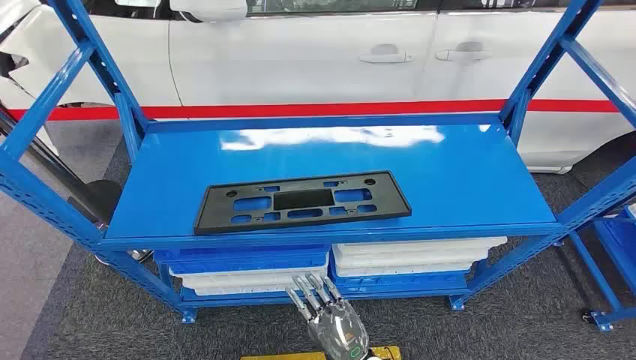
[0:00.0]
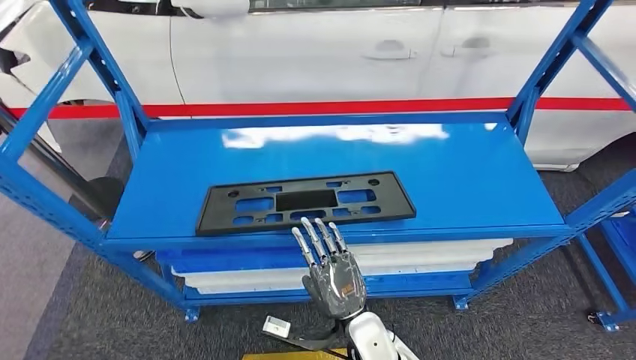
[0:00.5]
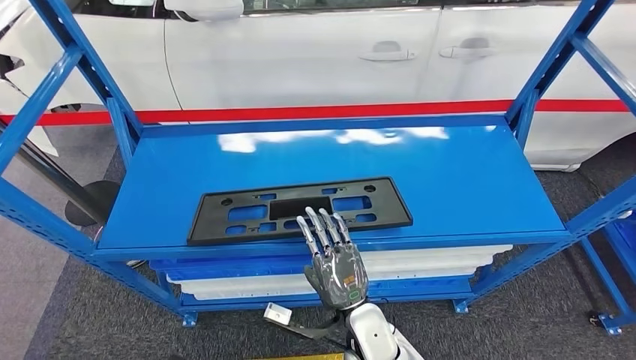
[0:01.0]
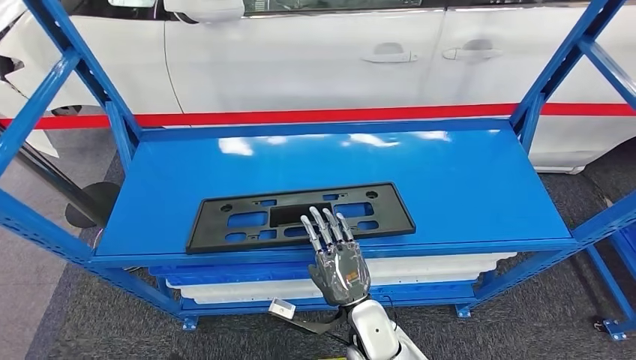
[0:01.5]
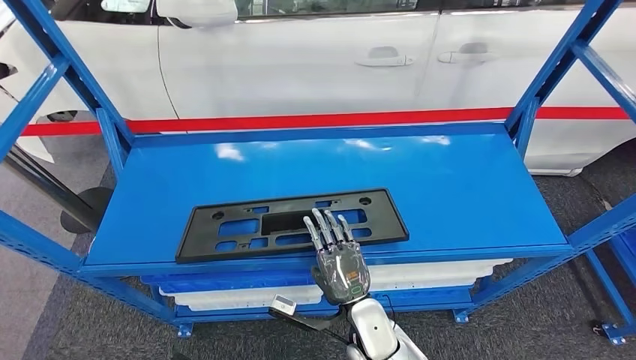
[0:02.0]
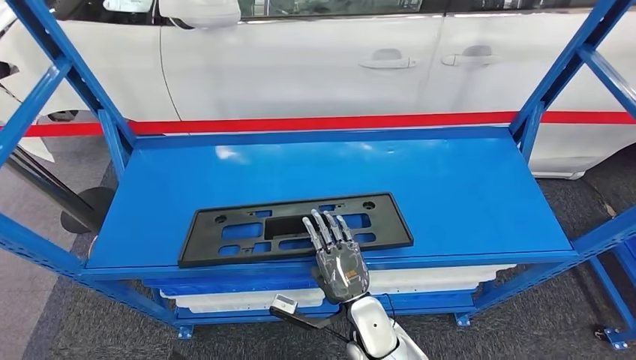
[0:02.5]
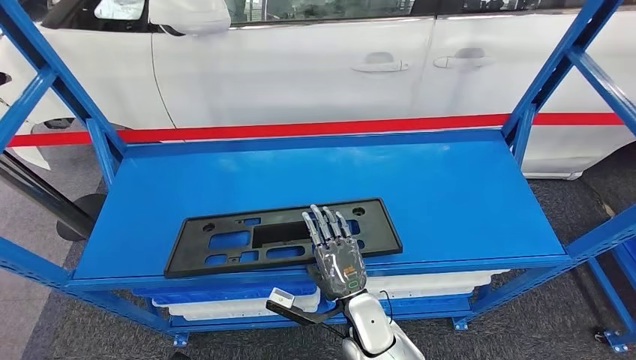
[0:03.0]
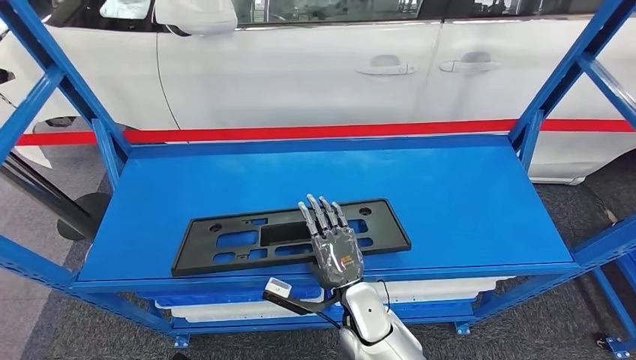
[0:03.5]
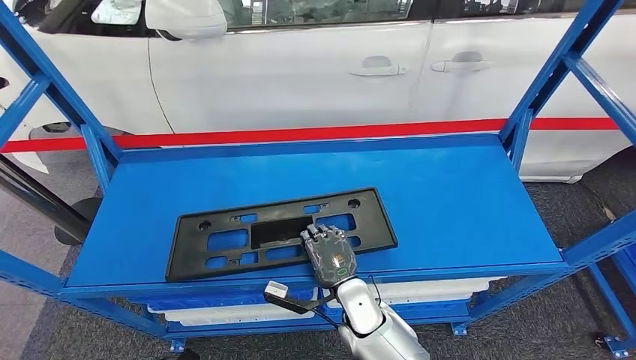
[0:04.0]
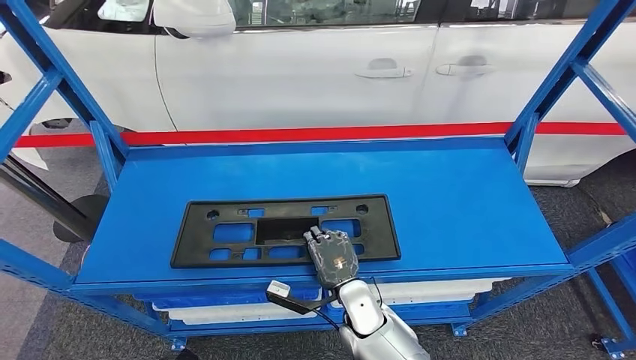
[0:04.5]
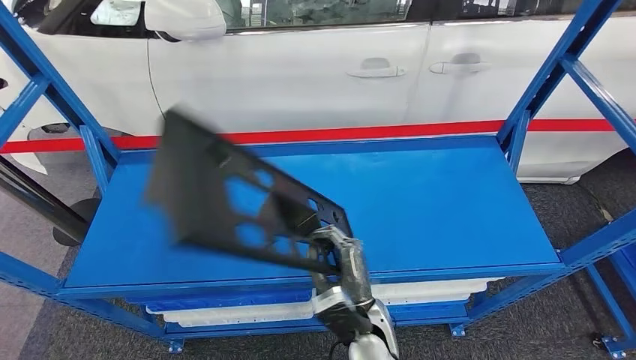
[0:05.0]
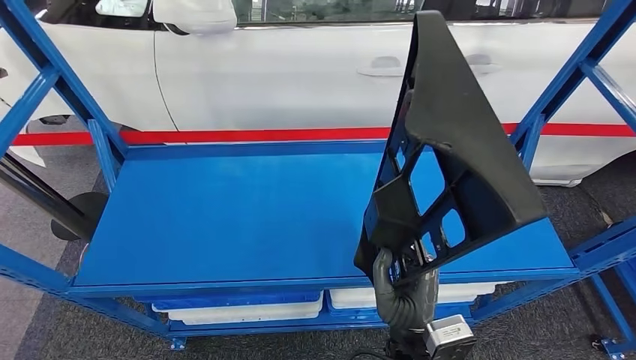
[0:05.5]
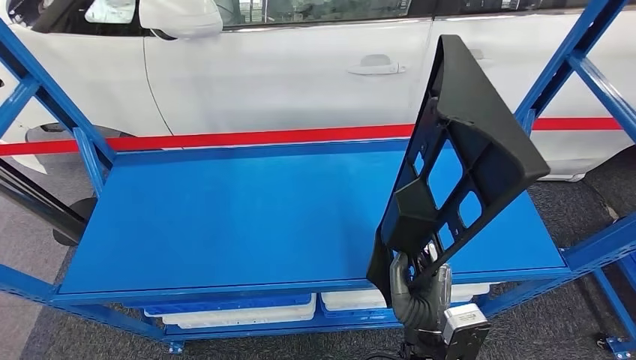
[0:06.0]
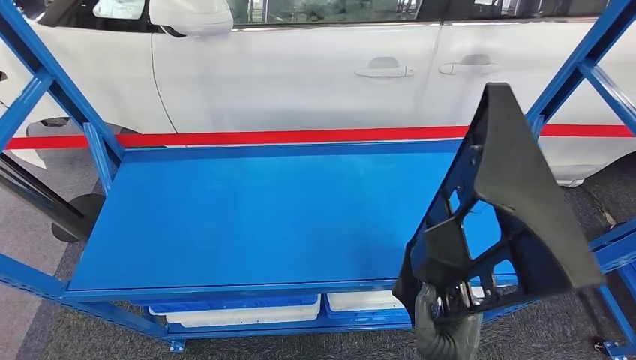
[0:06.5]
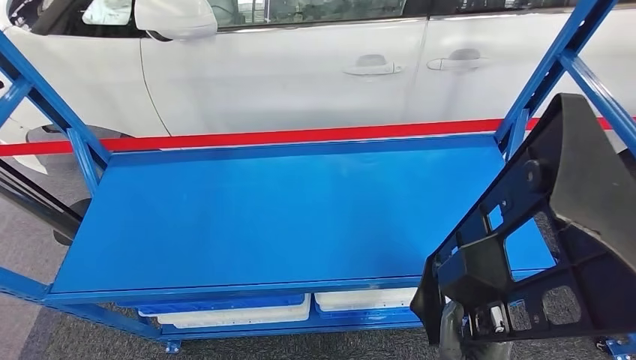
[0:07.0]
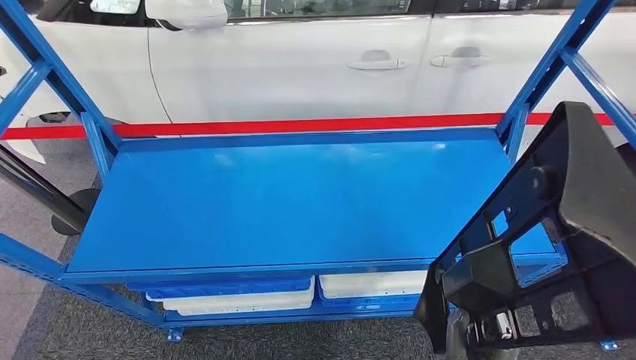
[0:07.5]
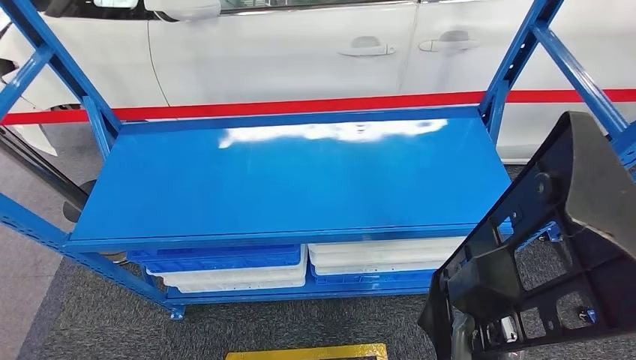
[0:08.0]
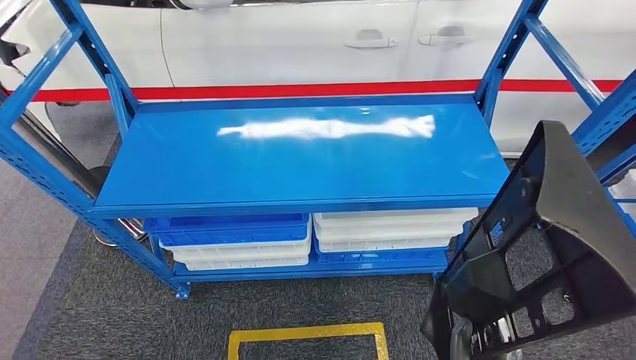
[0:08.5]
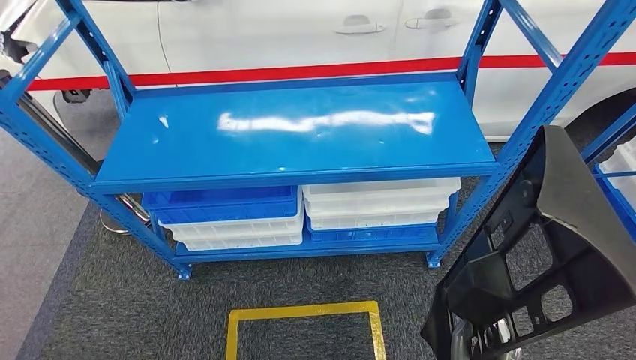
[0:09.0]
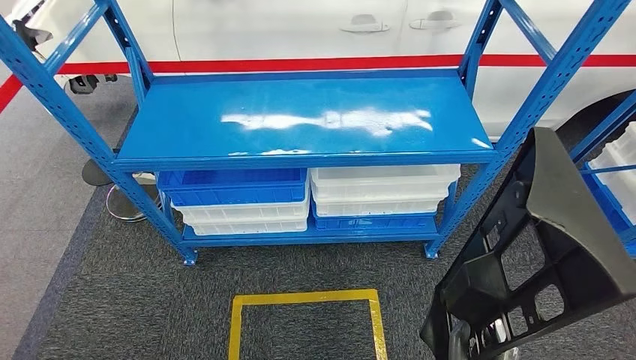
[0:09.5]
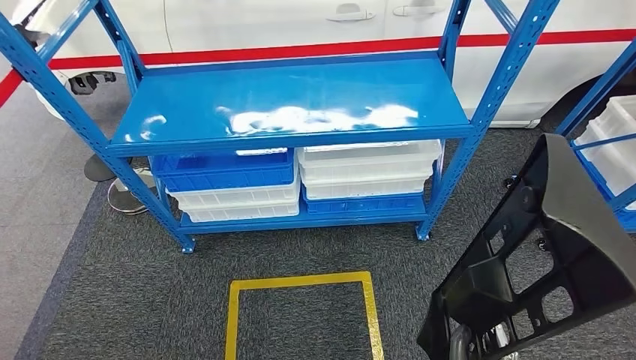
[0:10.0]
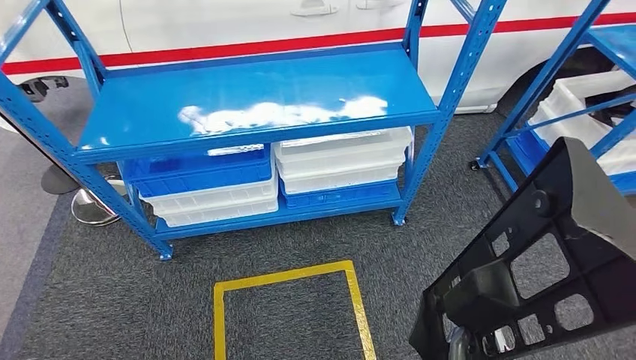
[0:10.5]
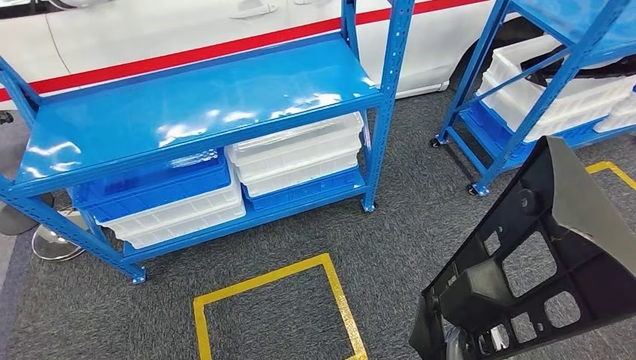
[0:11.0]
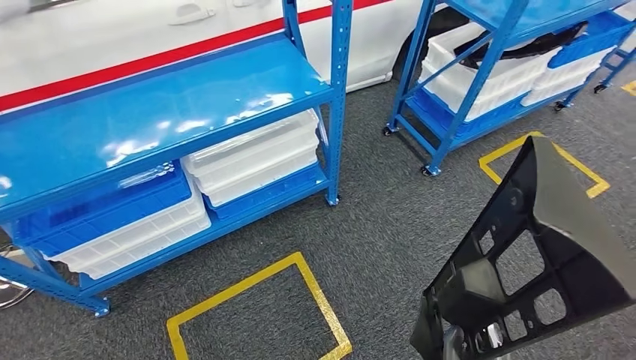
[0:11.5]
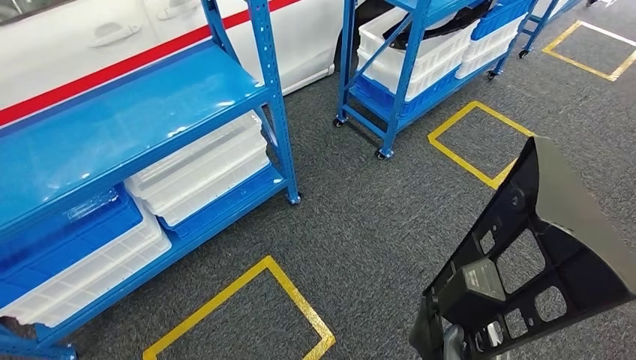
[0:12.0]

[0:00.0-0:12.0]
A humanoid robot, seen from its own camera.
Step, 0:00.0 to 0:06.5: Pick up the large material from the shelf.

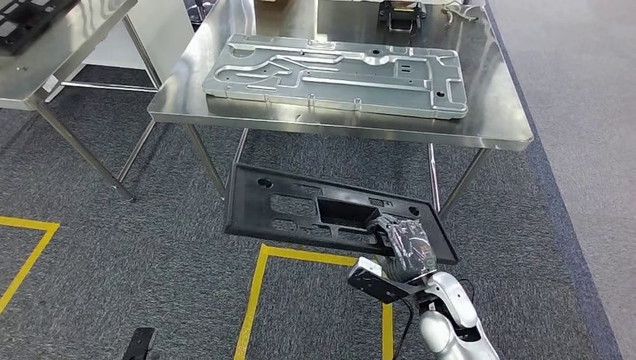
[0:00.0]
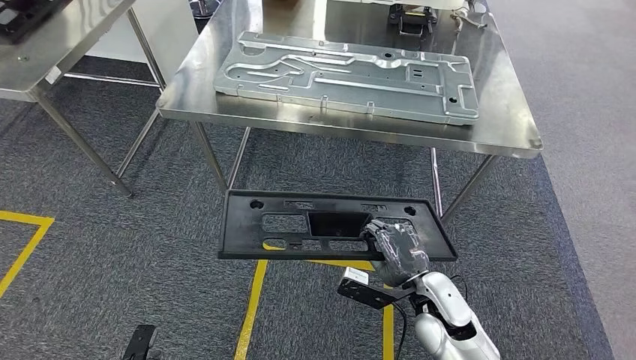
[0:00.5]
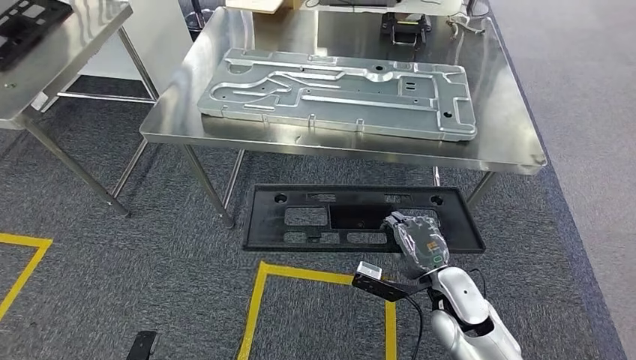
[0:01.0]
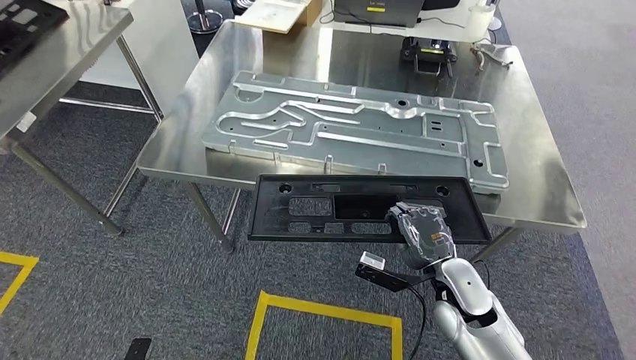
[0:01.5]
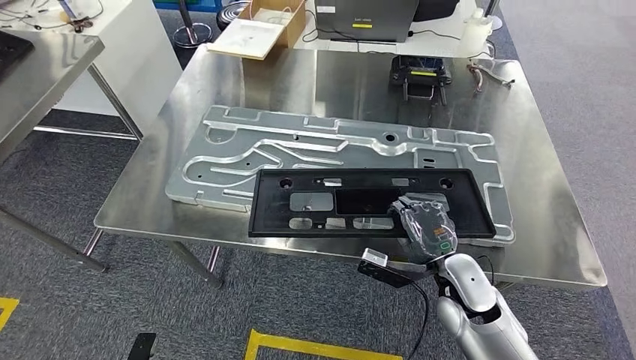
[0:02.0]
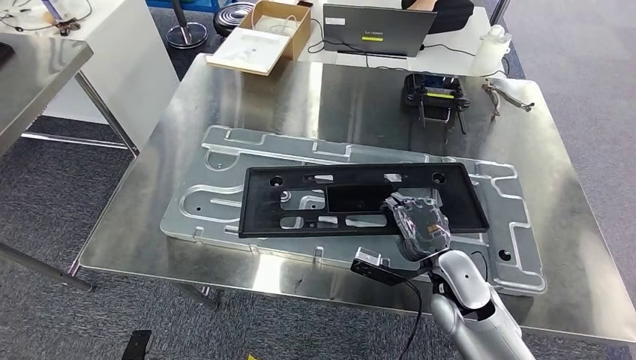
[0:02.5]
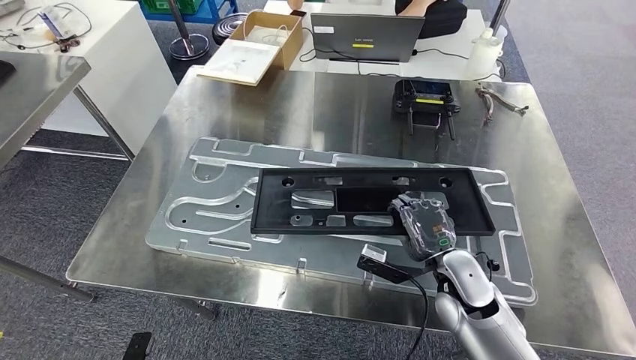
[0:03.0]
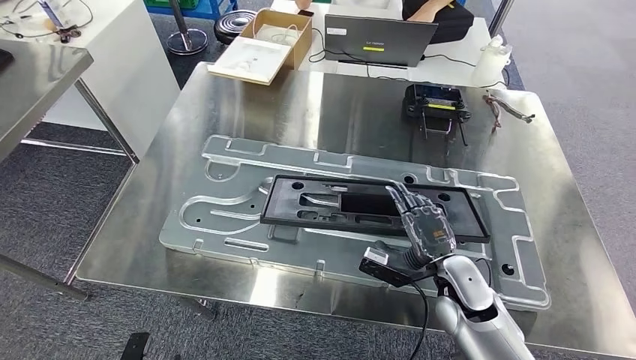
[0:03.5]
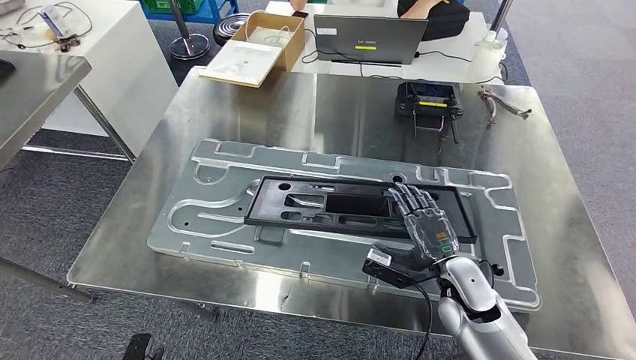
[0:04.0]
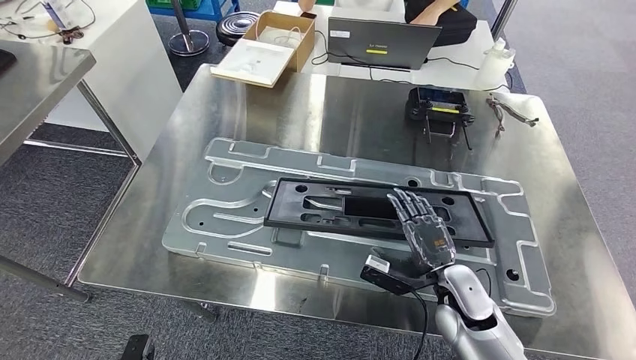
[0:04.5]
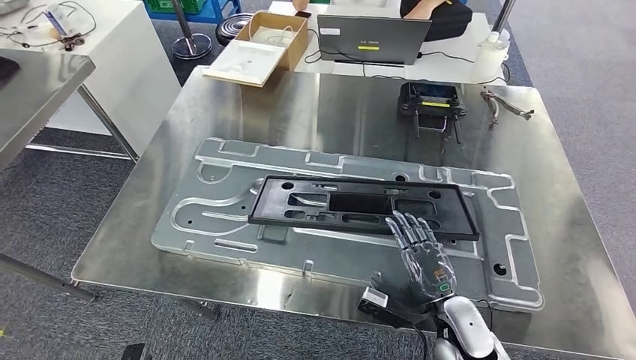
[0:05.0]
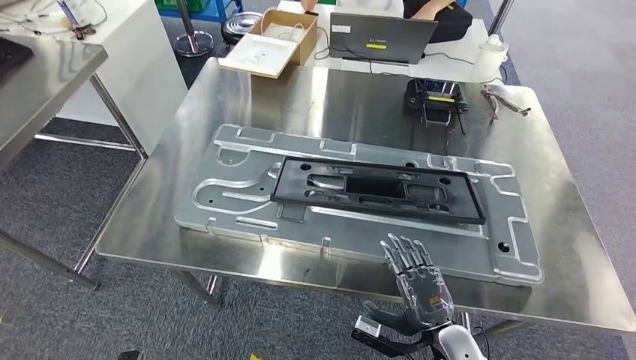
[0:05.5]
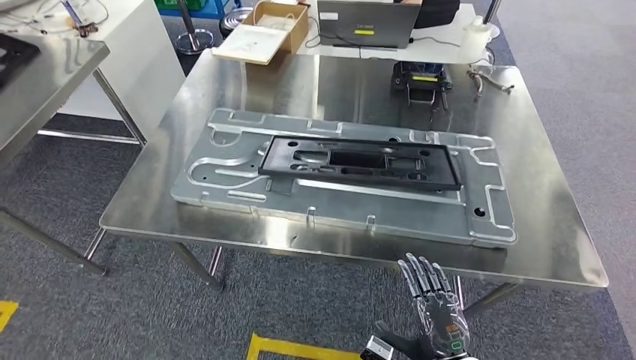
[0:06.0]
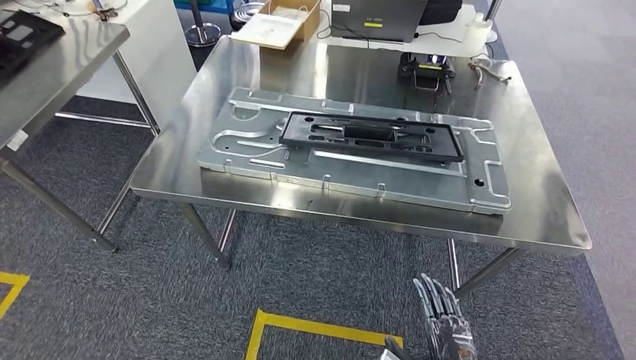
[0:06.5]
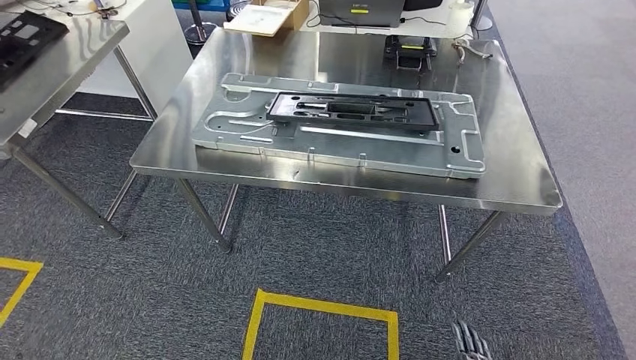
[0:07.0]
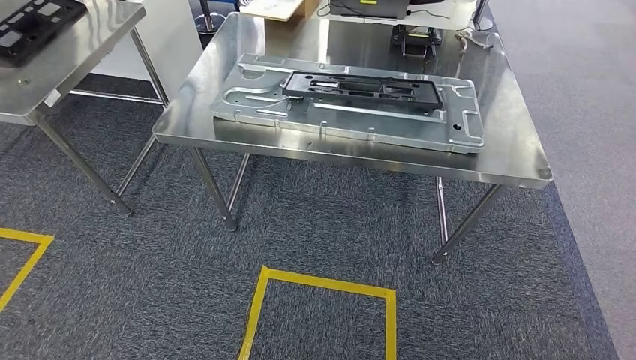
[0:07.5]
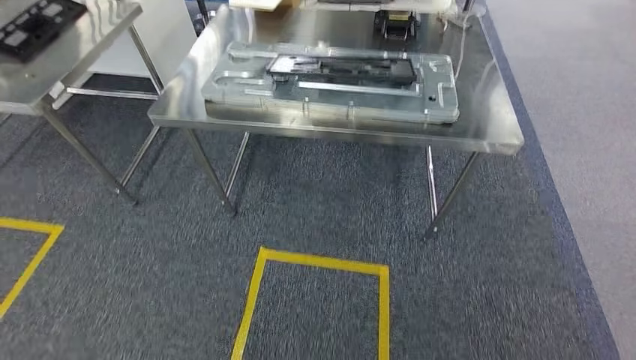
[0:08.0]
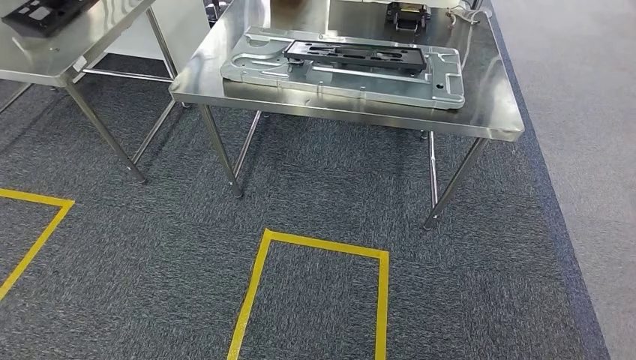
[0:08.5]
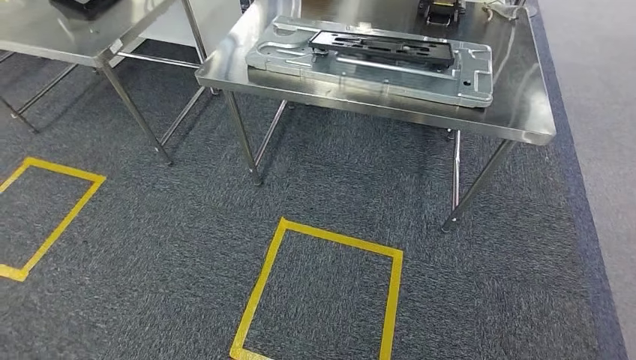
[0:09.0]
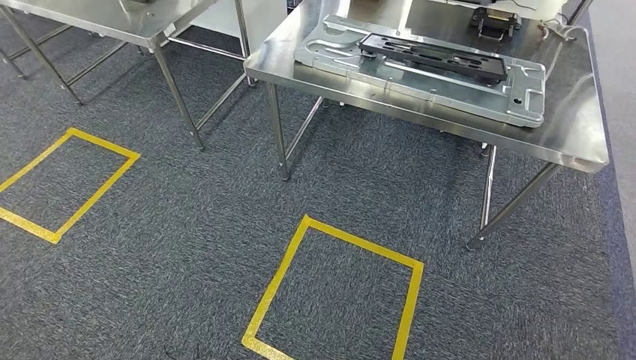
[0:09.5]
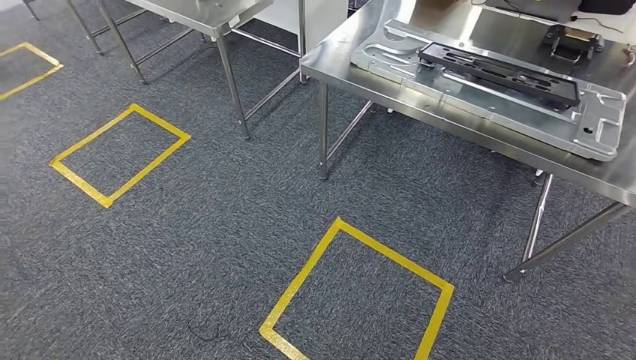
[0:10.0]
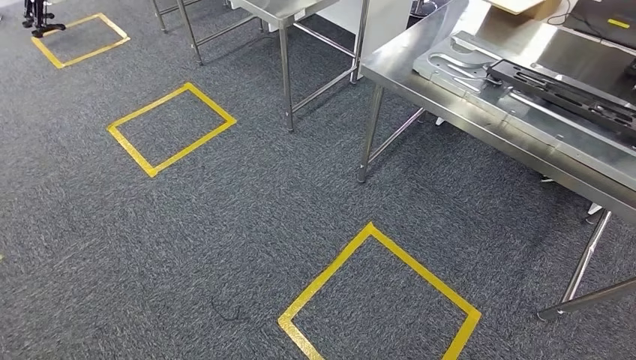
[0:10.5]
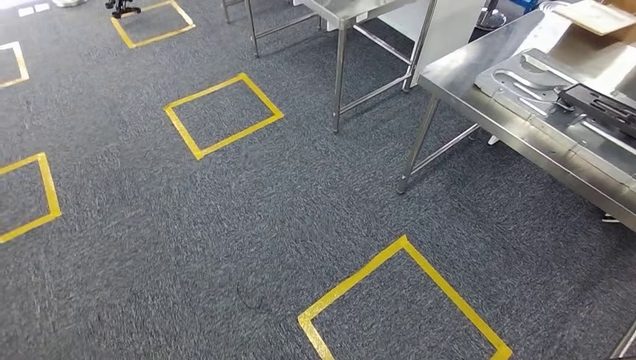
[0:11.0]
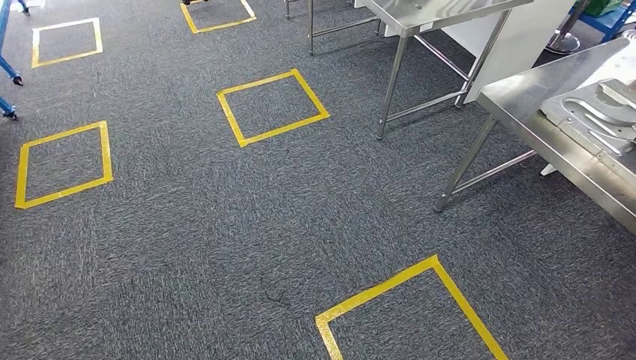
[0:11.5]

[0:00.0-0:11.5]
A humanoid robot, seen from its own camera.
Step, 0:01.0 to 0:06.5: Insert the large material into the corresponding slot on the workbench.
